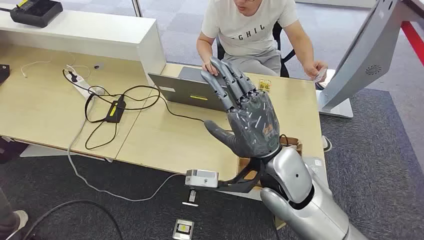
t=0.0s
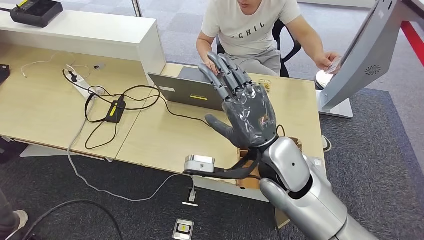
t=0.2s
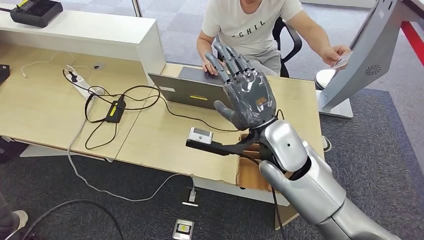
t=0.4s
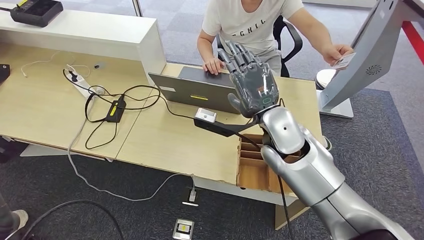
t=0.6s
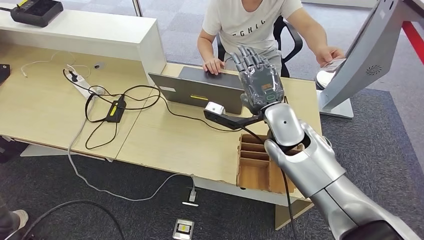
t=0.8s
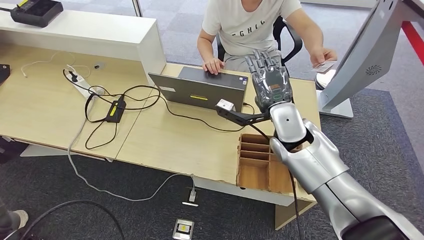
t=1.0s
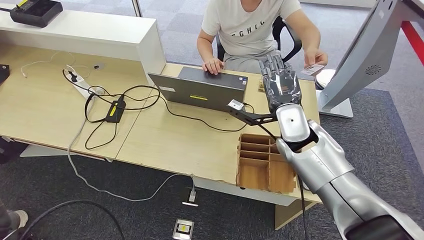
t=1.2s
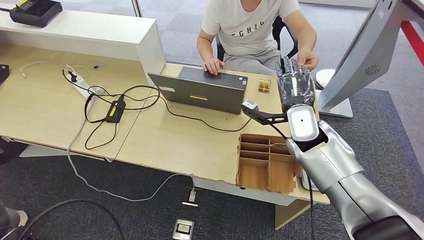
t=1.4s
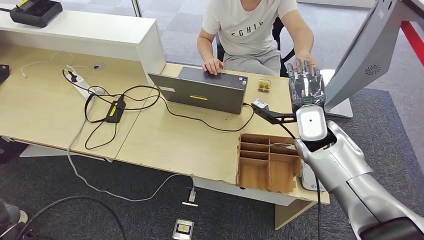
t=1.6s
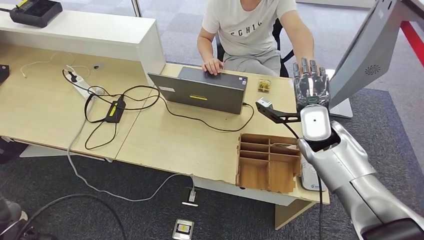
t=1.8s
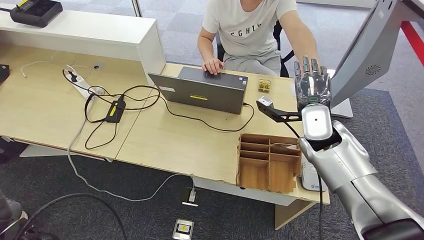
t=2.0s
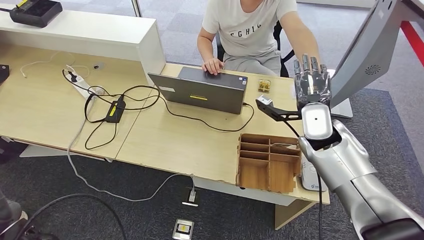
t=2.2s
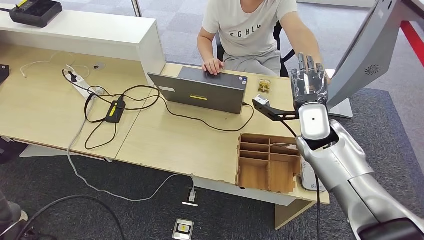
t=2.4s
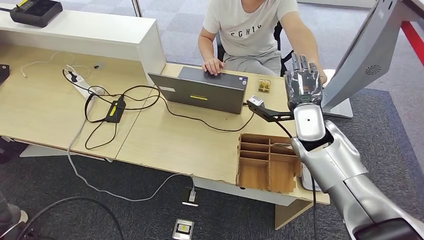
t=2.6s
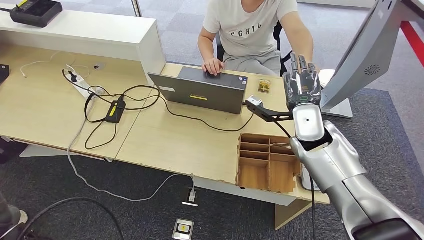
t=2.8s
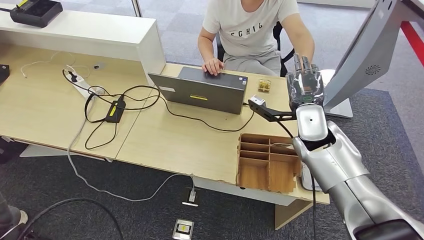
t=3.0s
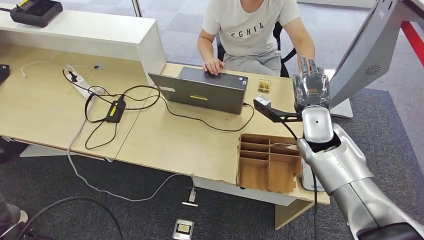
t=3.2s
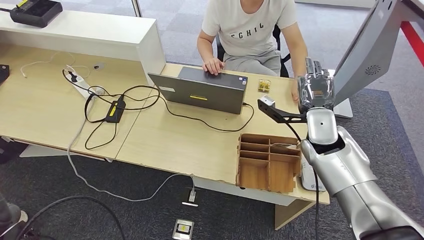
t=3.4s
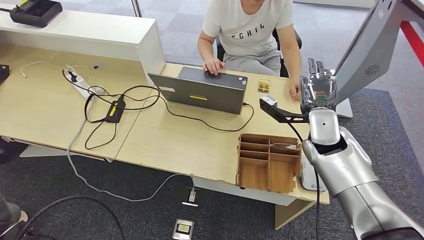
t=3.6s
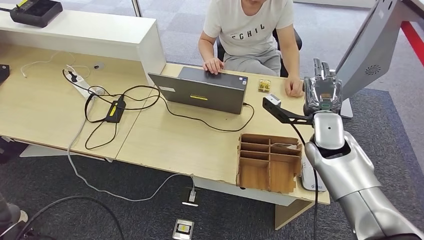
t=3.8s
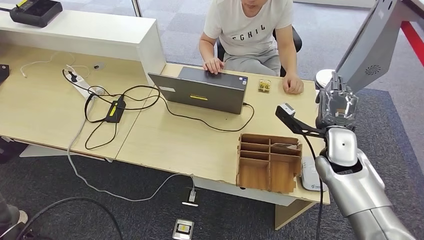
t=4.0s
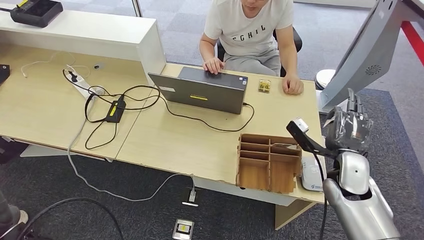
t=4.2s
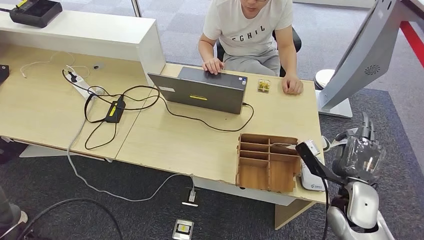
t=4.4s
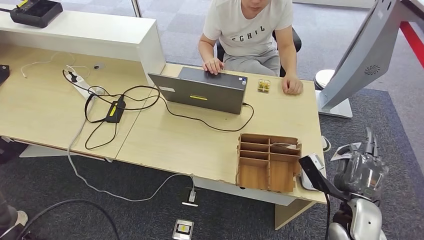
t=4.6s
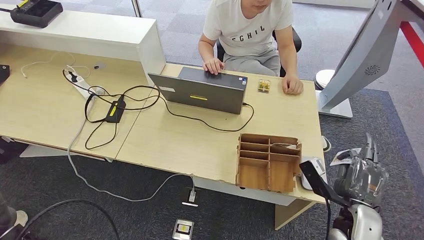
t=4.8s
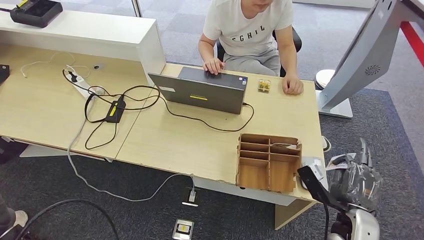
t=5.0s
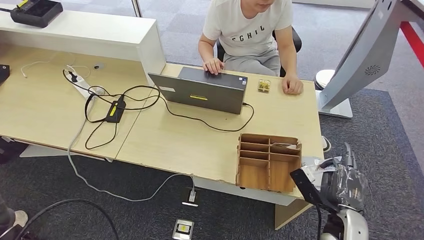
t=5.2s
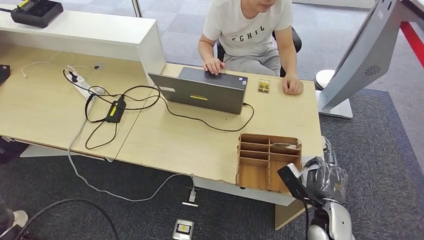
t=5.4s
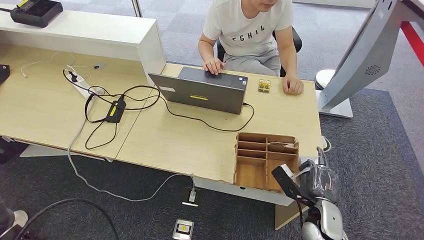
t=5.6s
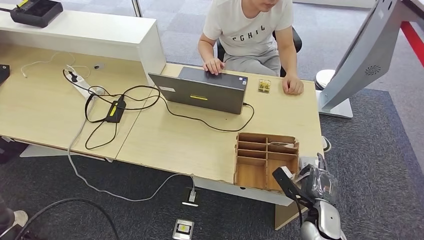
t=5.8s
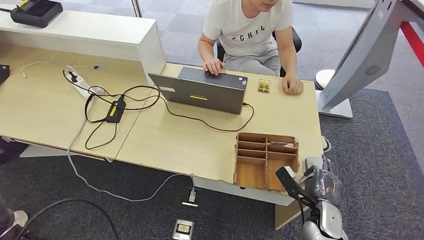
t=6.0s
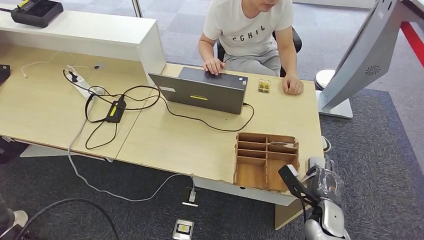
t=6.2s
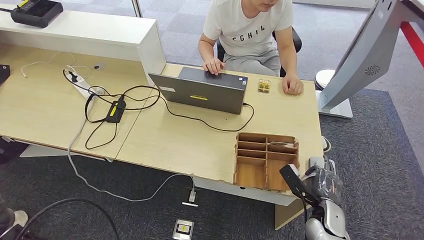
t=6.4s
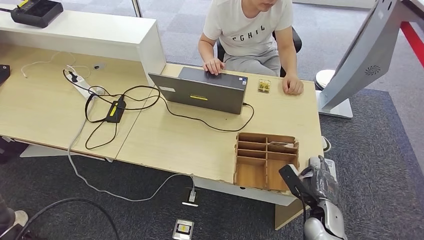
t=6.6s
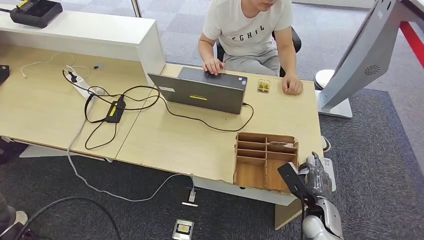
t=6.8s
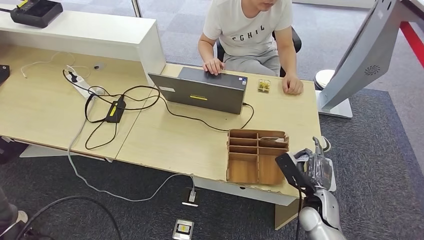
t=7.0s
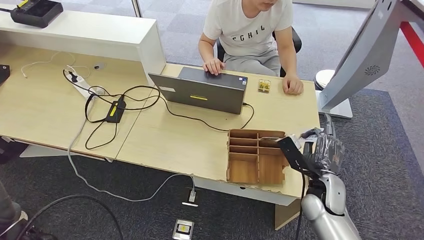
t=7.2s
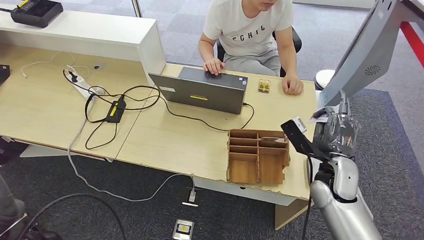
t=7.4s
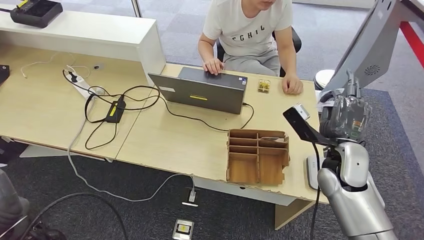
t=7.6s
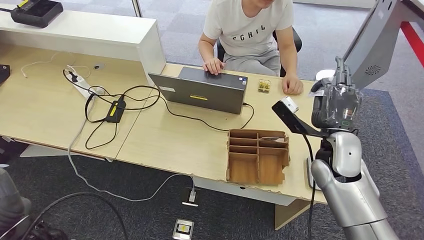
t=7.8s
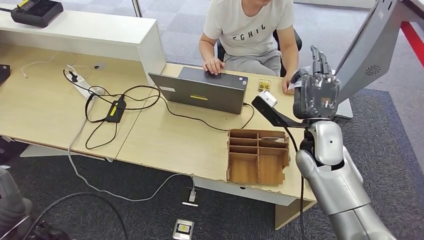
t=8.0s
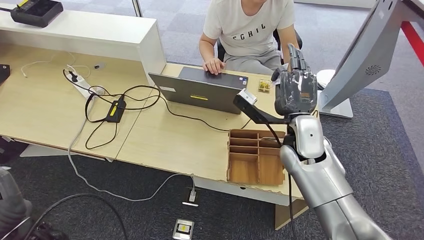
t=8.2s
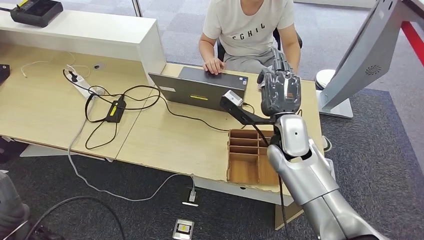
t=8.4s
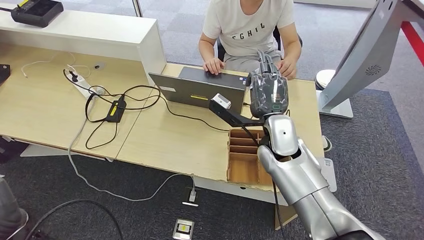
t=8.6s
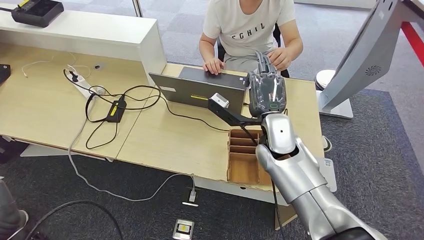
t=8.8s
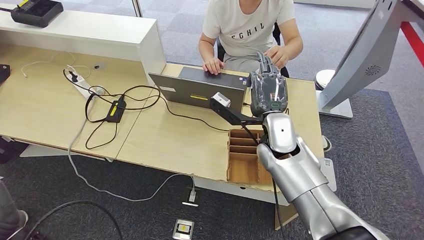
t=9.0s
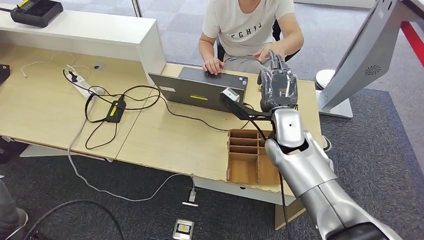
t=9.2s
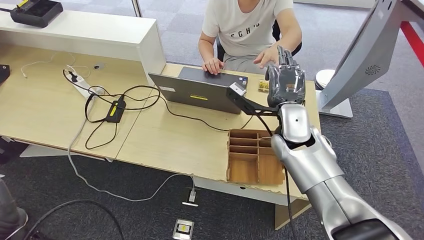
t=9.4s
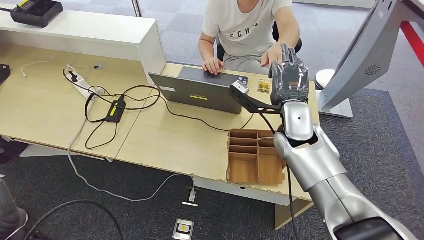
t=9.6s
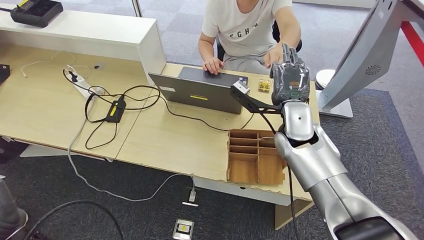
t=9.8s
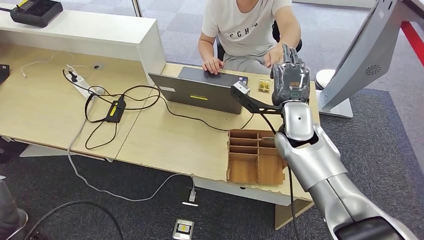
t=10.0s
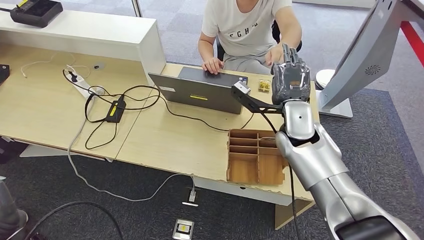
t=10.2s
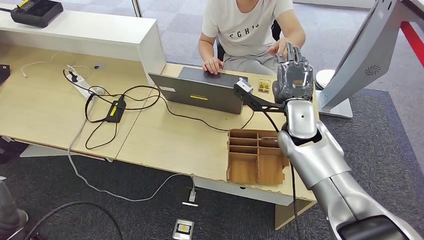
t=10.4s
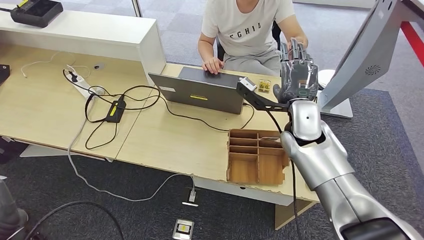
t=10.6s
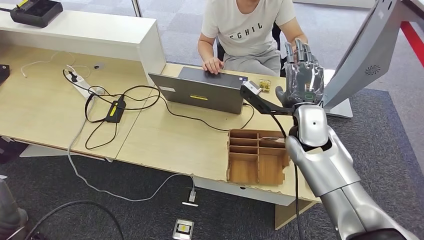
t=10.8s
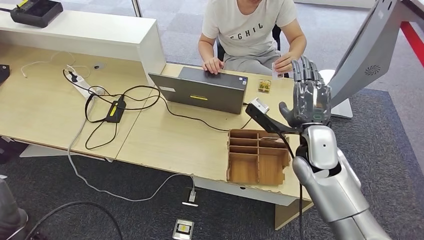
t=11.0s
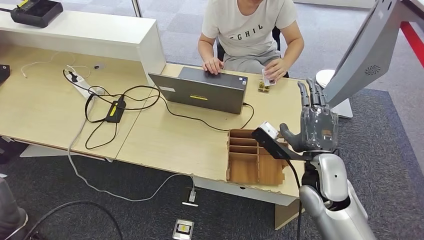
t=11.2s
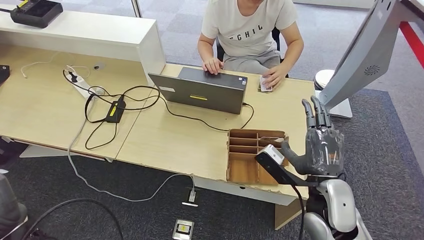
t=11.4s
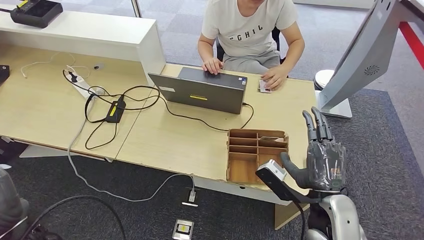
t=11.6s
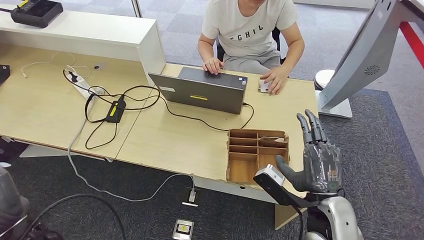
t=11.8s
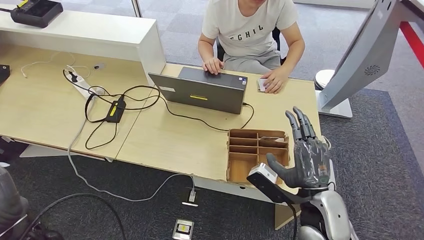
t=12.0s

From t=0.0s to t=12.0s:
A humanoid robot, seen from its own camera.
Step, from t=0.0s to t=5.0s: Take the ID card from the person's hand.
Step, from t=5.2s to t=7.2s: Place the ID card on the card reader.
From t=1.6s to t=3.0s: The hands make only small movements.
From t=3.0s to t=4.4s: The right hand travels backward, to the right and downward by approximately 20 cm.
From t=4.4s to t=6.0s: The right hand heads downward, covering roughly 10 cm.
From t=6.0s to t=7.6s: The right hand shifts approximately 20 cm upward and forward.
From t=7.6s to t=9.0s: The right hand moves to the left, about 15 cm.
From t=9.0s to t=10.4s: The right hand changes place by about 5 cm.
From t=10.4s to t=12.0s: The right hand moves backward and downward, some 20 cm.

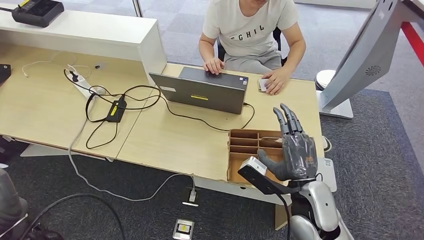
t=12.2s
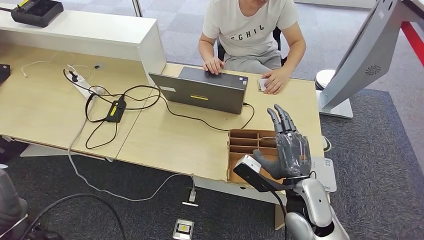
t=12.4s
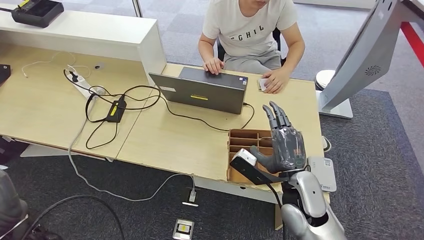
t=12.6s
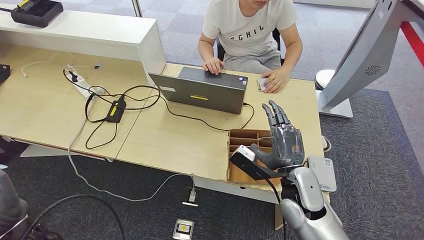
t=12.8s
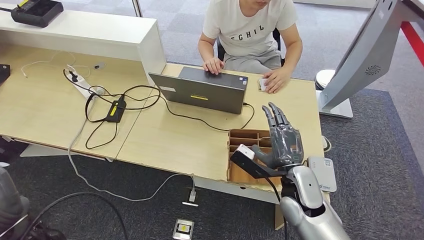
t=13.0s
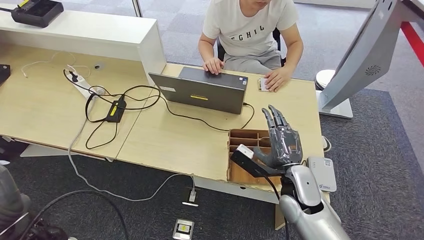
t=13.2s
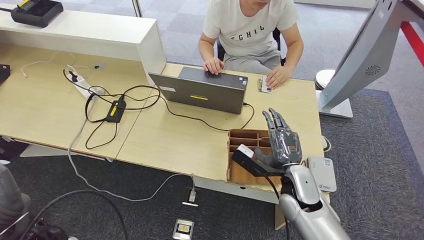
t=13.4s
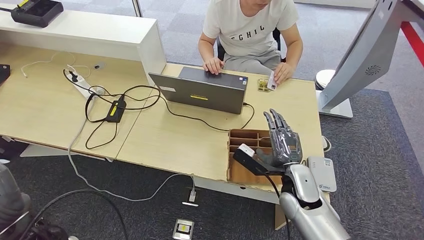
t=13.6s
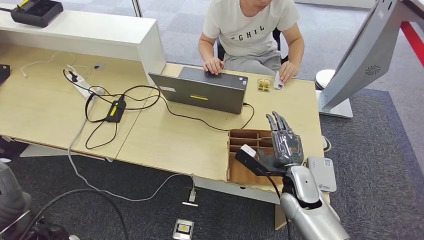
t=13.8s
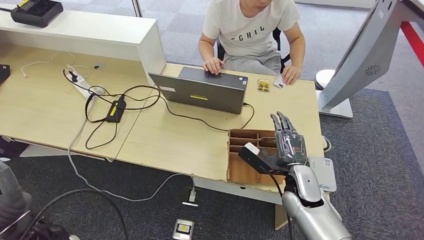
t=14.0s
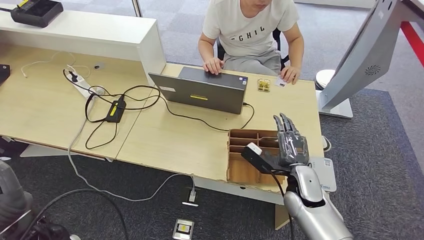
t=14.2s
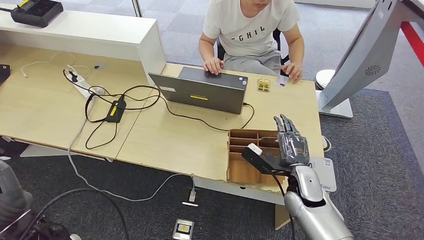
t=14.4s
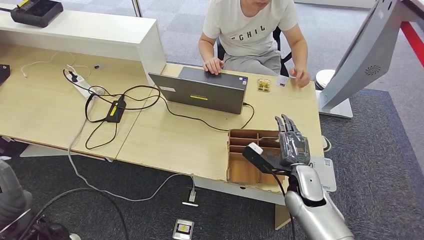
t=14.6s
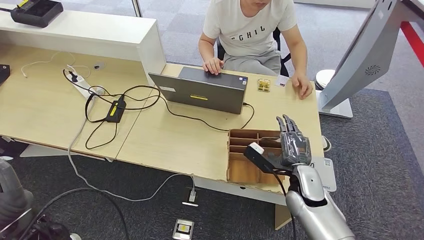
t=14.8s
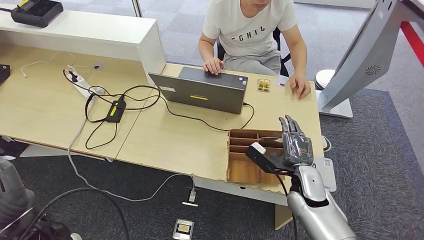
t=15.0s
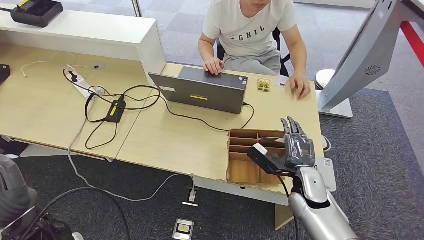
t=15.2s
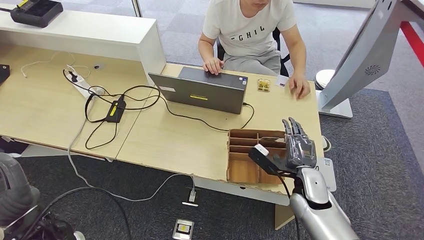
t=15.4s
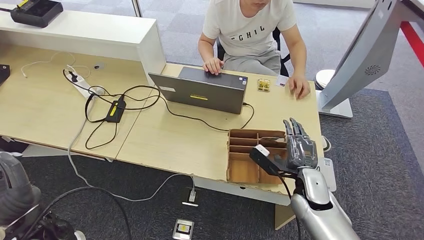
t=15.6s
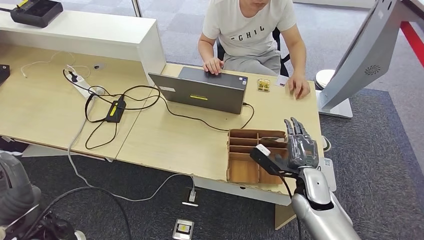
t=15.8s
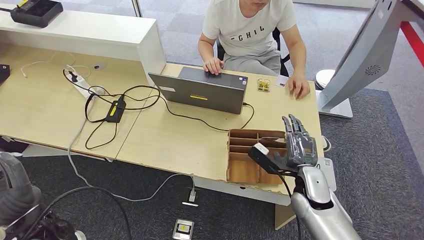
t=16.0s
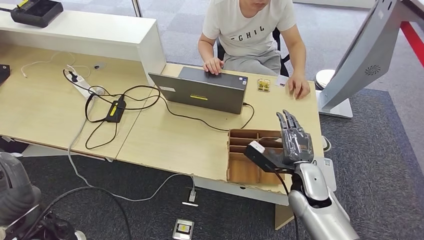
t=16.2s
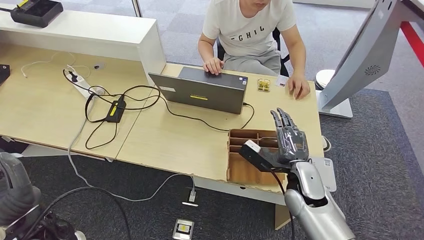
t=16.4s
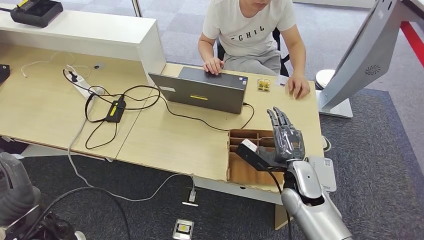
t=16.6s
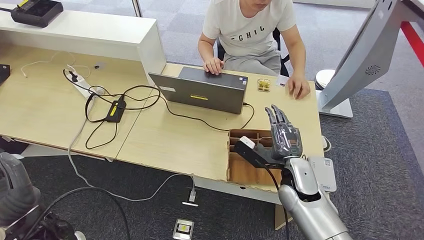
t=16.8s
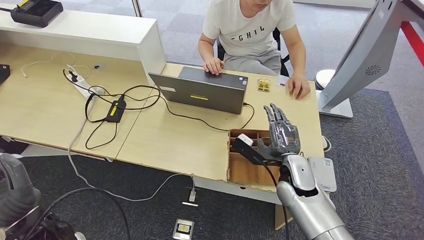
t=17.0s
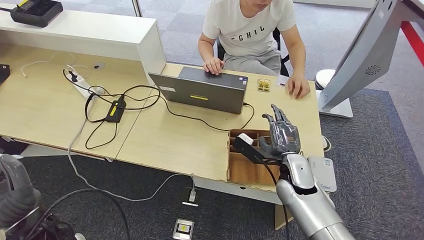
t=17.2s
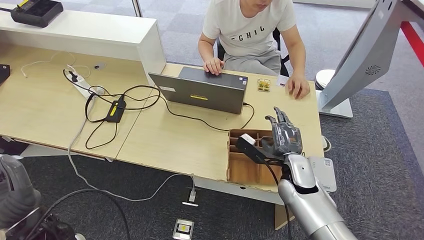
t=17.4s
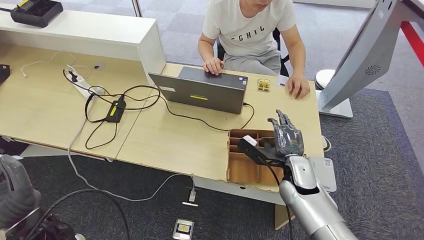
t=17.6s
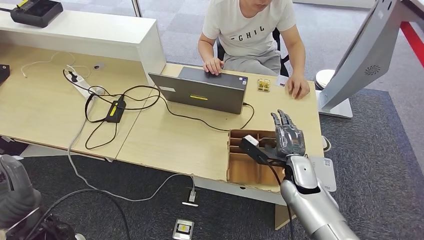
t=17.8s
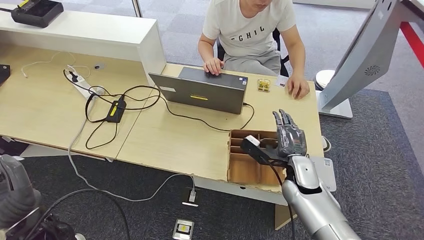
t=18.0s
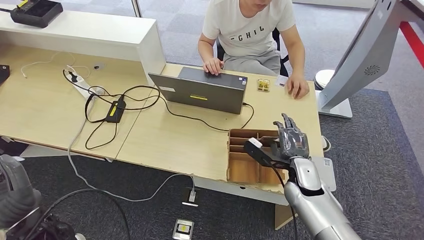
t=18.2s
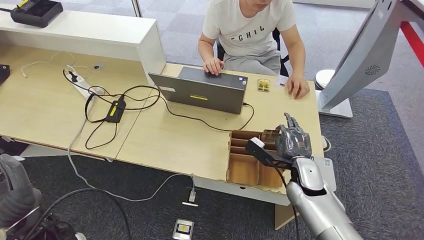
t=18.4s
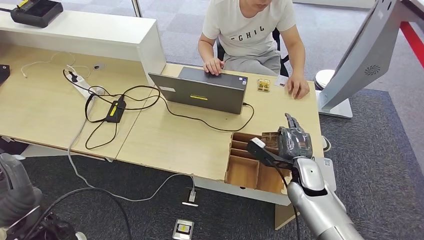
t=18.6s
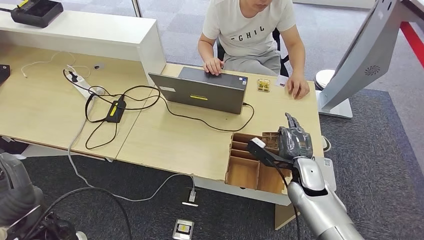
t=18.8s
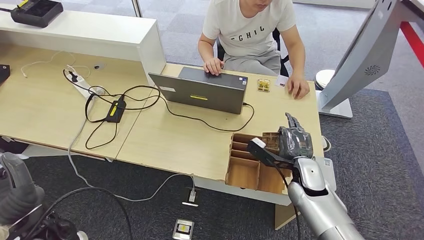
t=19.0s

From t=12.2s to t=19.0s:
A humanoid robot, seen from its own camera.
From t=12.2s to t=13.6s: The right hand moves forward, some 5 cm.
From t=13.6s to t=19.0s: The hands move only a little.
